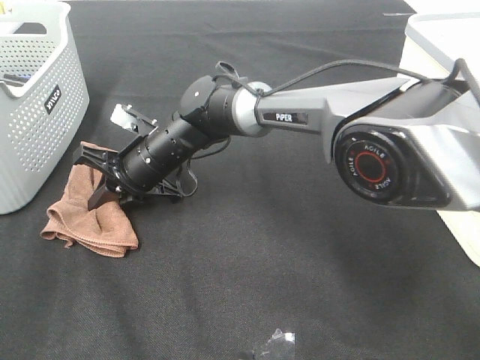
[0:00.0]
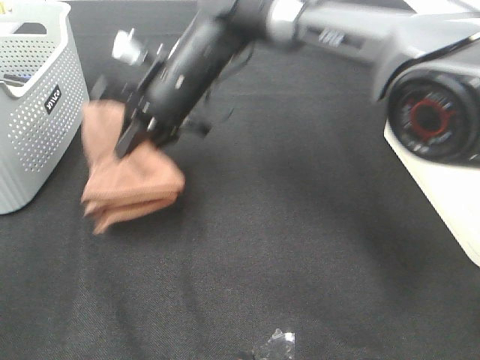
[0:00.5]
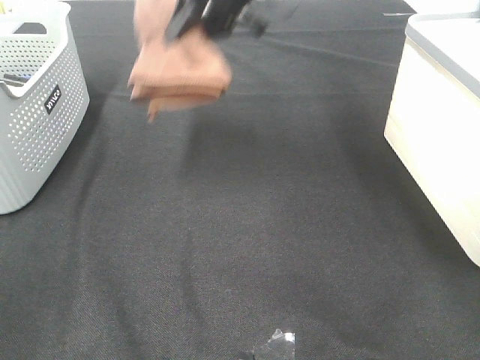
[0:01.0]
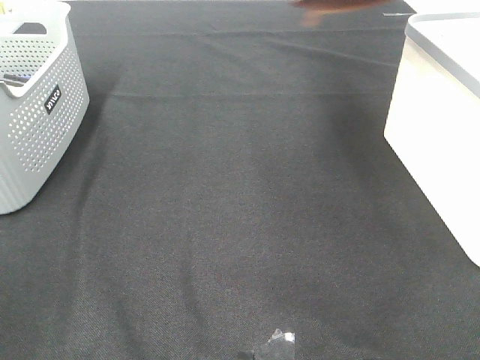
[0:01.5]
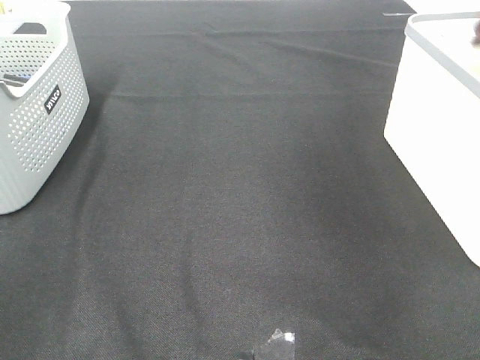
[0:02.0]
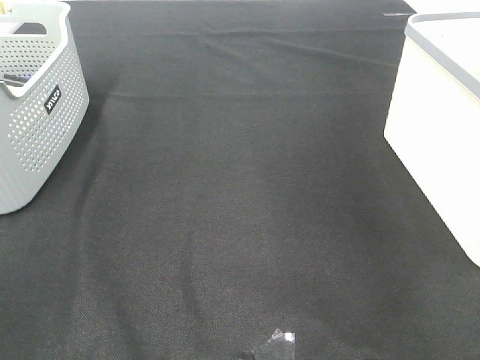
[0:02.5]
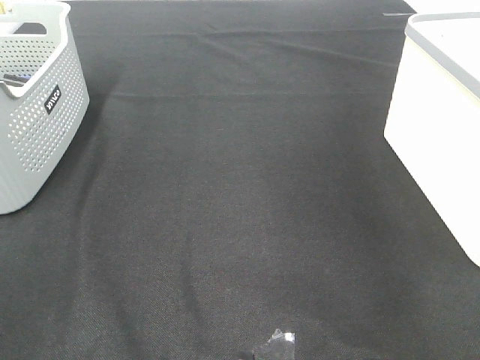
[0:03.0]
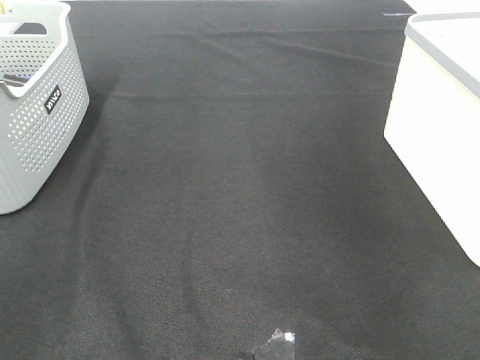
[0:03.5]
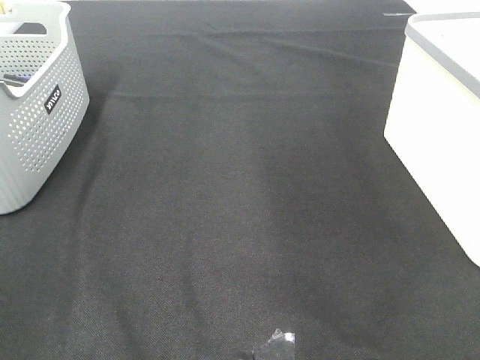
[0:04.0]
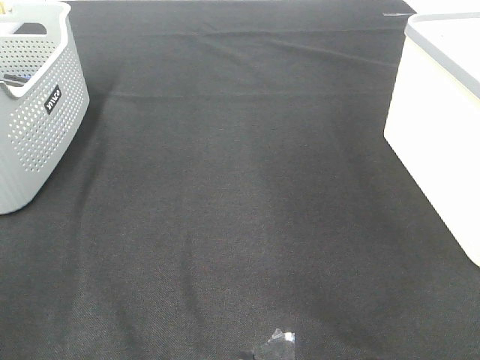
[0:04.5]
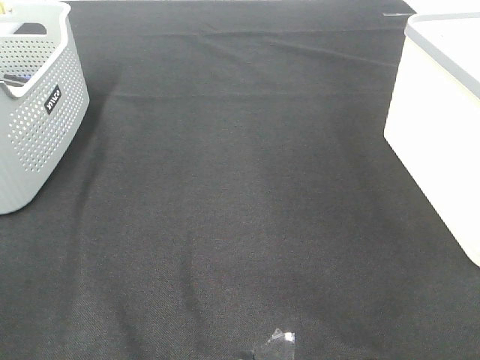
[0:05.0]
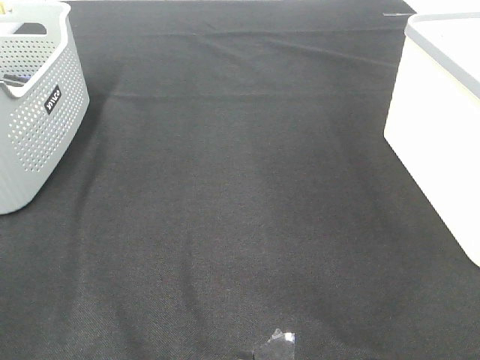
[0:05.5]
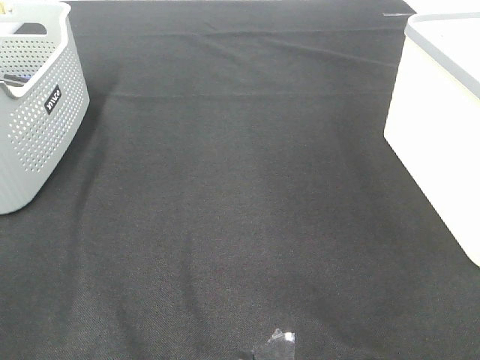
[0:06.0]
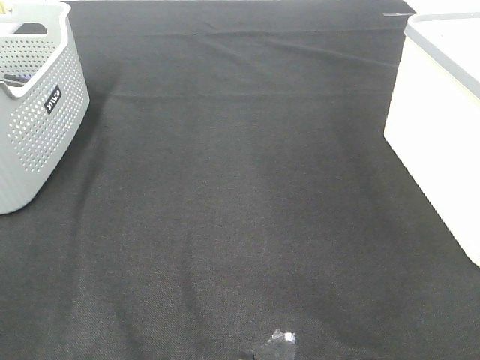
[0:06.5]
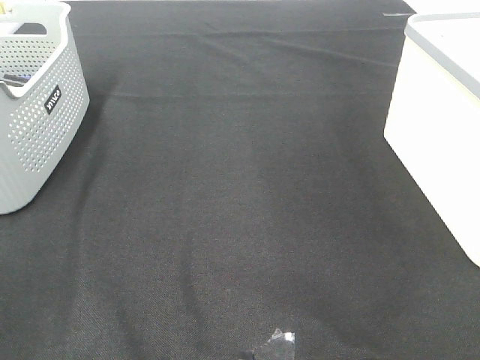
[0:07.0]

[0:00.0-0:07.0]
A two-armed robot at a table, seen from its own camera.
Step, 0:00.0 to 0:02.5: Right hand: place the brown towel in right basket.
0:00.0 to 0:02.0: The right gripper is displaced to the right and upward by some 50 cm.

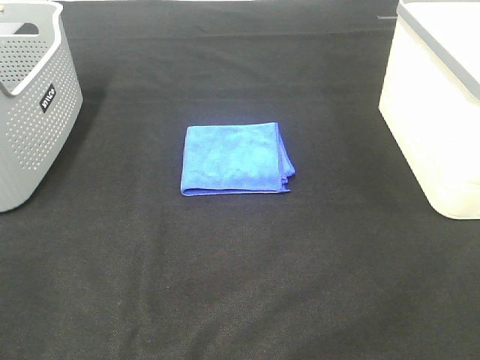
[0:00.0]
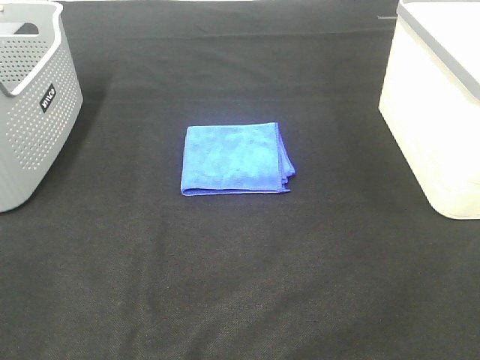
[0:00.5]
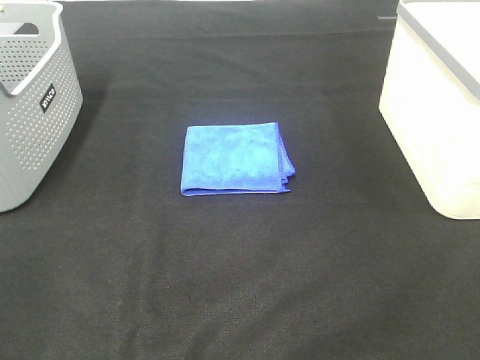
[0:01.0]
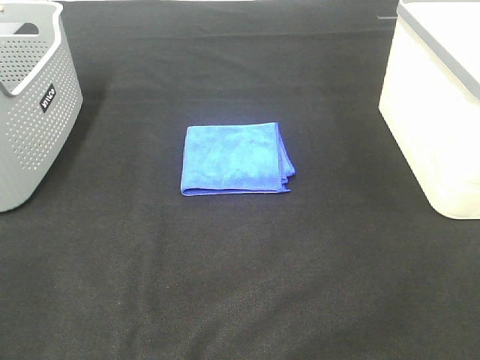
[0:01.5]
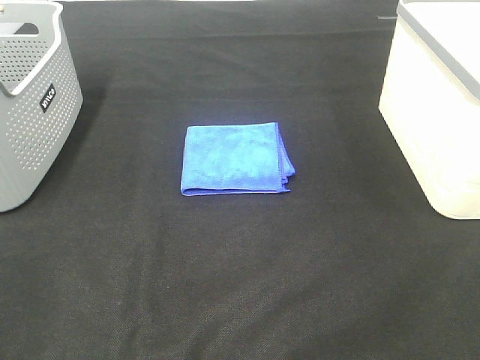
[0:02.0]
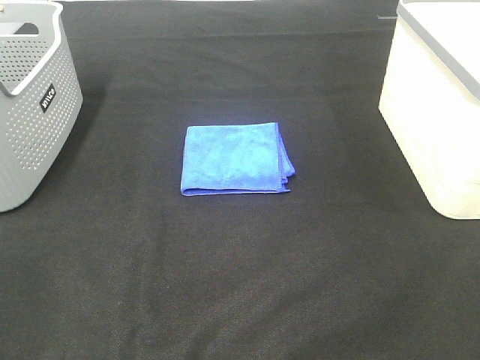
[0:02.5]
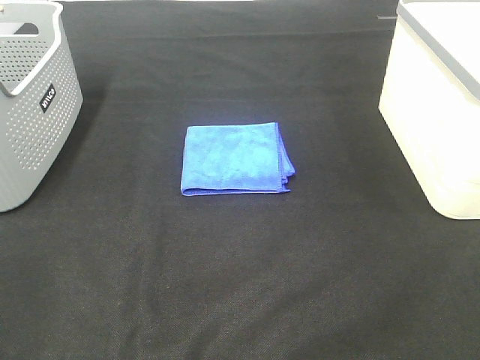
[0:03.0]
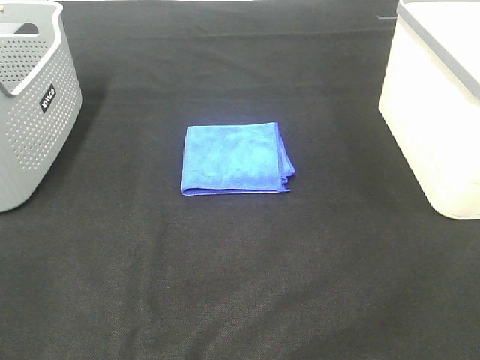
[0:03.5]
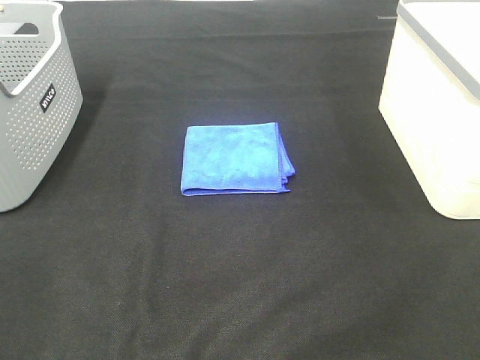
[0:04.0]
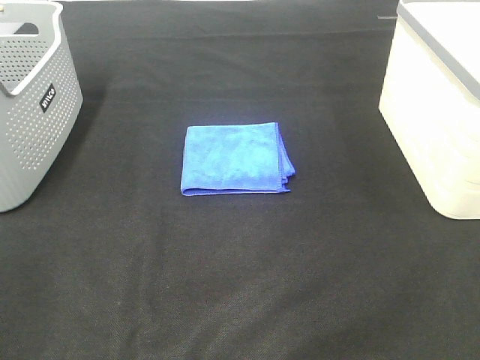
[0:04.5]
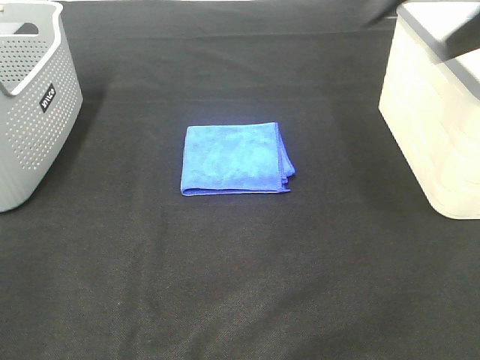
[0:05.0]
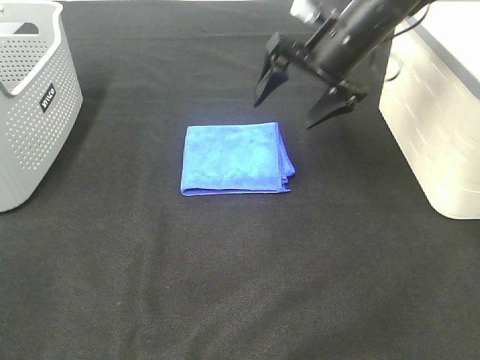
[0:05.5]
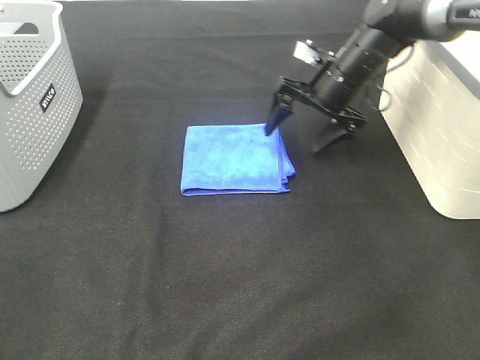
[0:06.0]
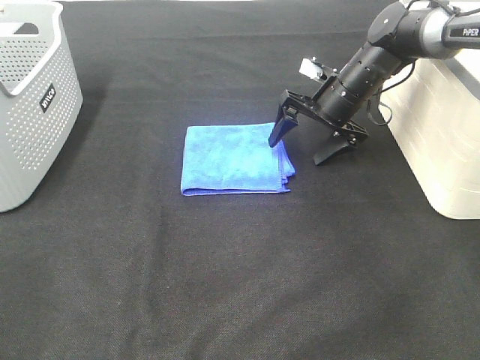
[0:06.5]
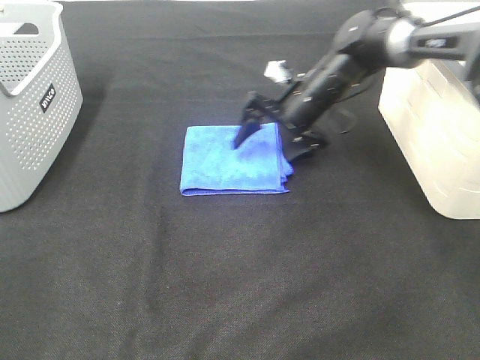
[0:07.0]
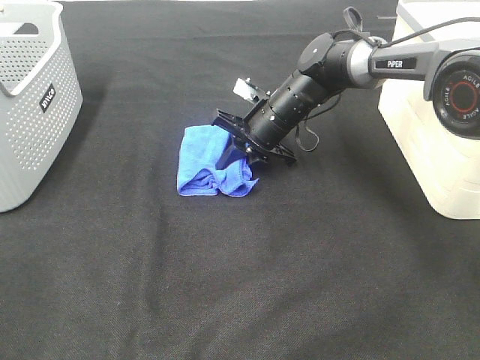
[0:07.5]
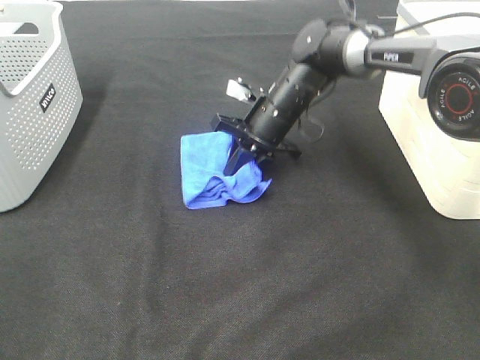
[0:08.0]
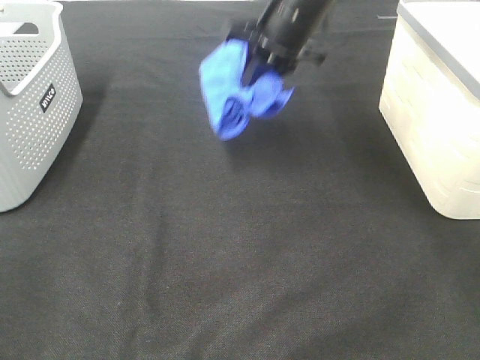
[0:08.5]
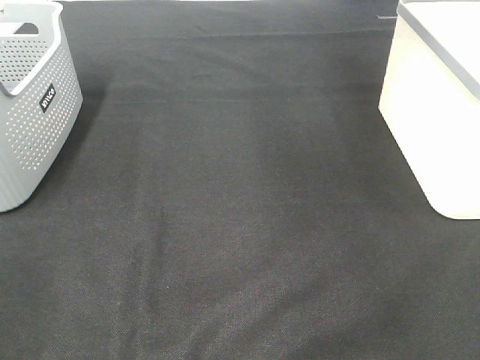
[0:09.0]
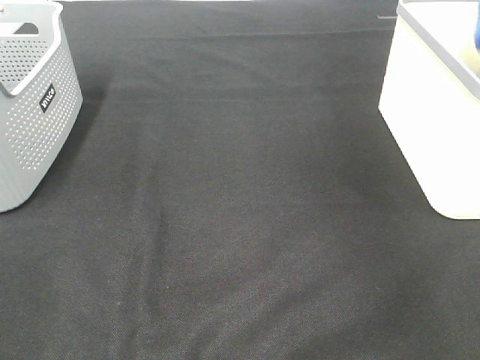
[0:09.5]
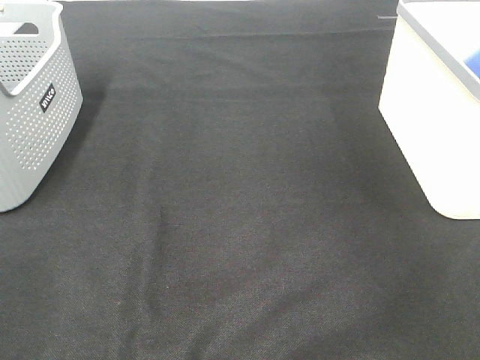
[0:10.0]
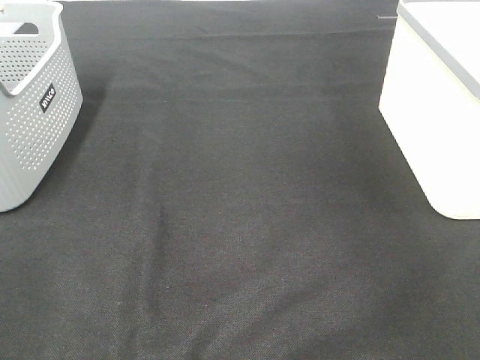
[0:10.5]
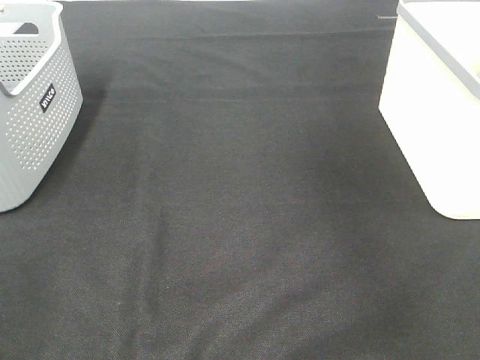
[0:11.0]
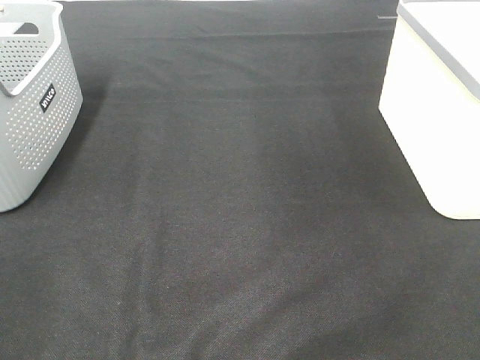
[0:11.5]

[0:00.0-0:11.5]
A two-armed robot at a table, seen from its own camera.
Step, 0:00.0 to 0:07.5: Right hand: grab the folded blue towel.
Step, 0:08.0 to 0:10.0: Right hand: place the blue towel in right basket.
0:00.0 to 0:02.0: Both grippers stay about where they are.
0:04.0 to 0:06.0: The right gripper heads forward, covering roughly 40 cm.
0:06.0 to 0:07.5: The right gripper heads to the left and downward, covering roughly 10 cm, and closes.
0:07.5 to 0:09.5: The right gripper is displaced to the right and upward by roughly 40 cm.

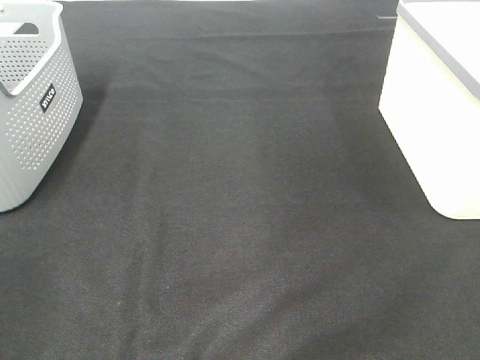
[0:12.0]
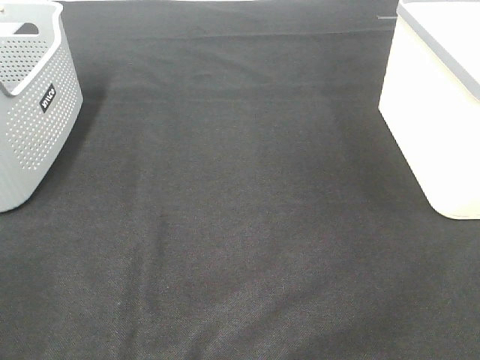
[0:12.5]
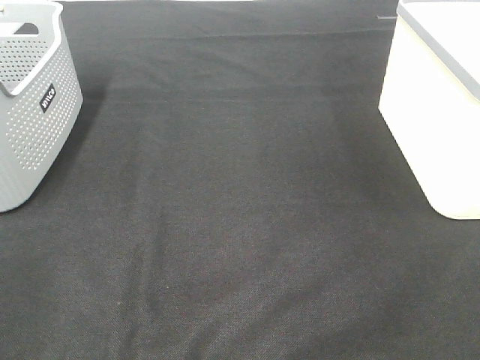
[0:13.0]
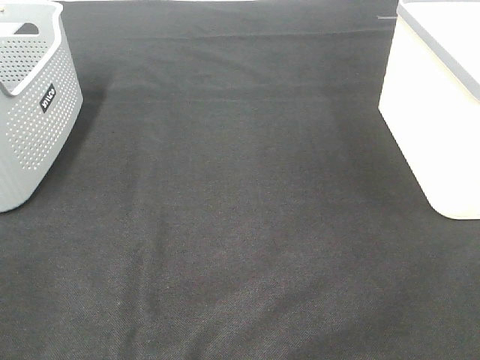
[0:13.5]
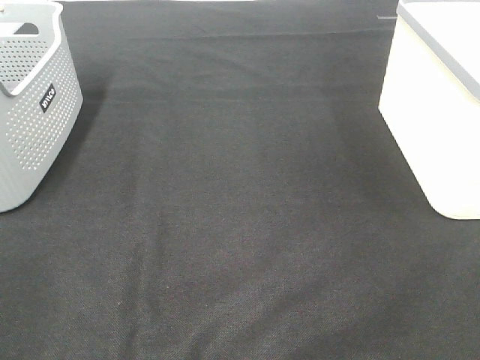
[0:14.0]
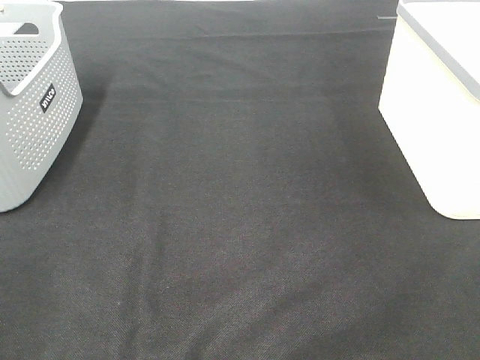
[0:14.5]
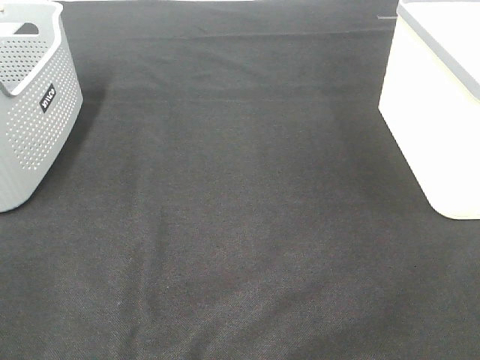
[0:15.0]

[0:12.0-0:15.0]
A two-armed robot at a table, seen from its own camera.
0:13.5 to 0:15.0: The two grippers keep their place.

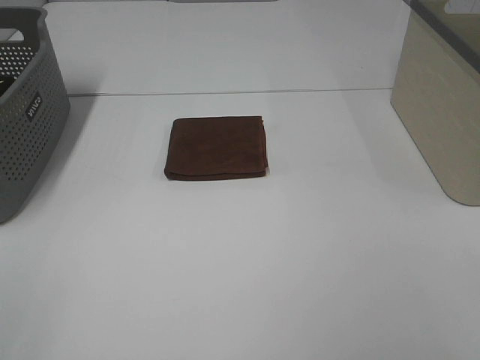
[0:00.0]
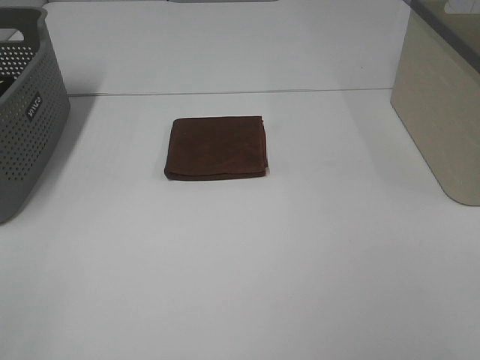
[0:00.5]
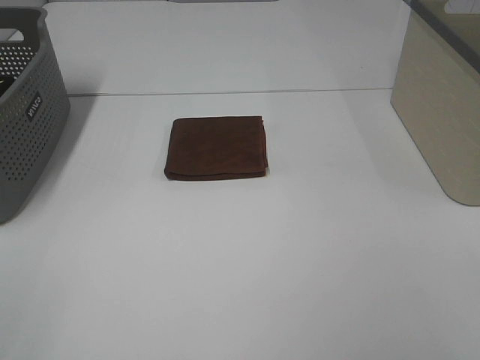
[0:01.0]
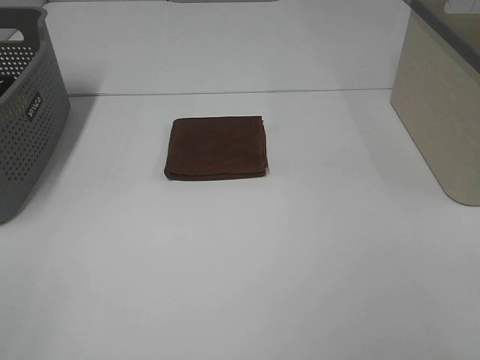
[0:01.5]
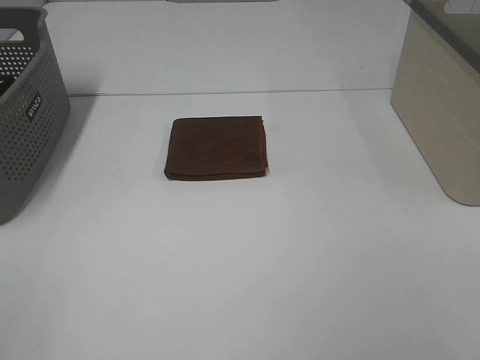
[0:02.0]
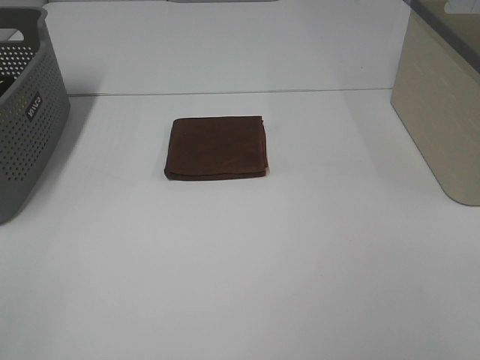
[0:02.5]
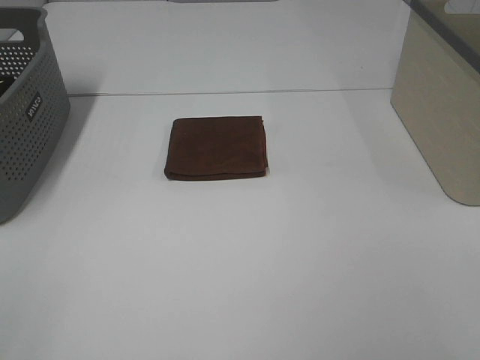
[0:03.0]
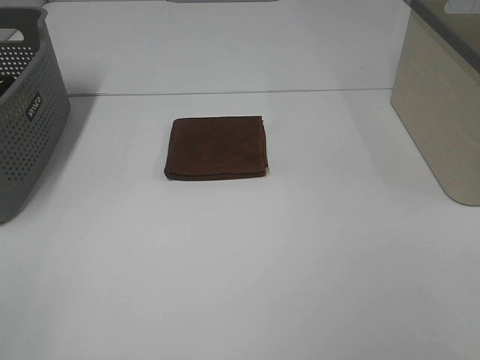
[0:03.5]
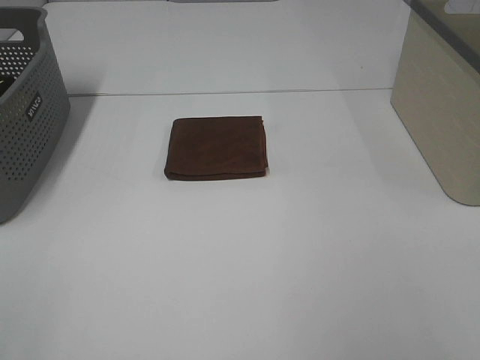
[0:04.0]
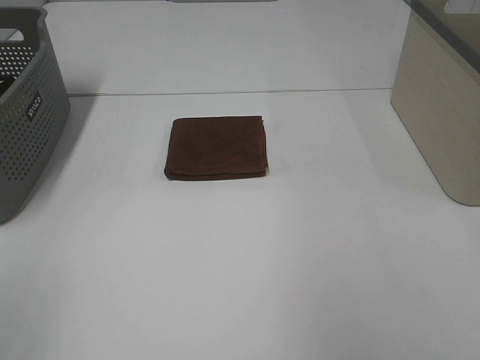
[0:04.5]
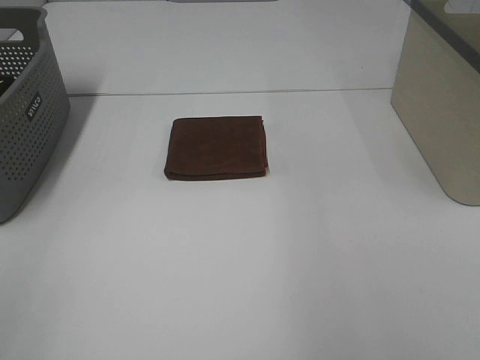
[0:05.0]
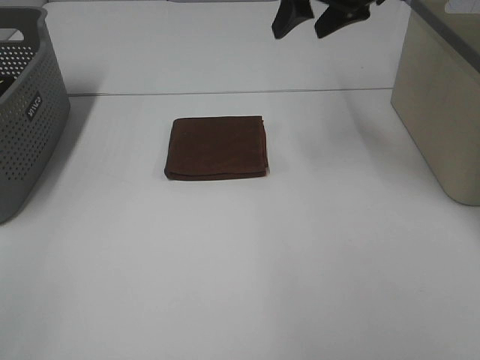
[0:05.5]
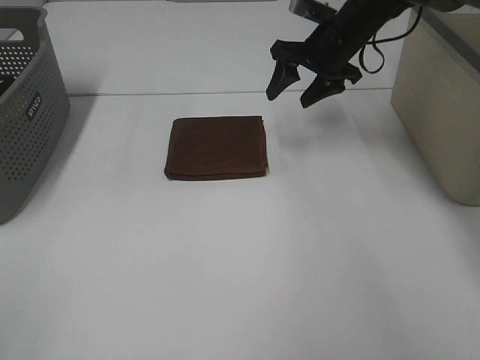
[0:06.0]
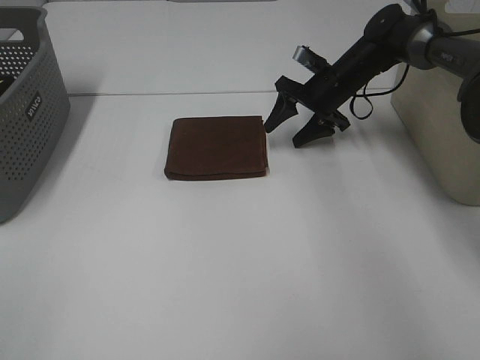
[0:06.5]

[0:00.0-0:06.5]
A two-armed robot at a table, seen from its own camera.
0:00.0 to 0:02.0: The two grippers keep their place.
0:04.5 to 0:06.5: The right gripper is displaced forward, downward and to the left by about 40 cm.
